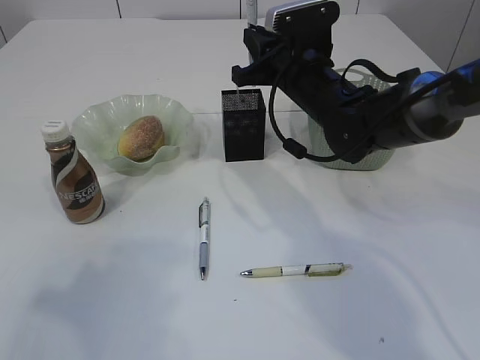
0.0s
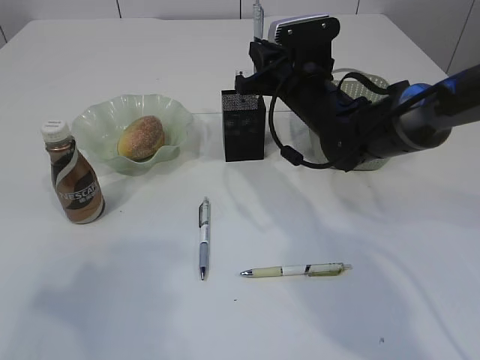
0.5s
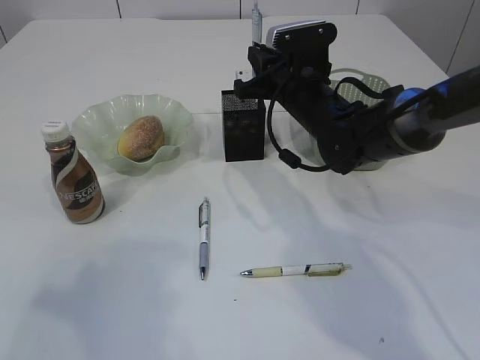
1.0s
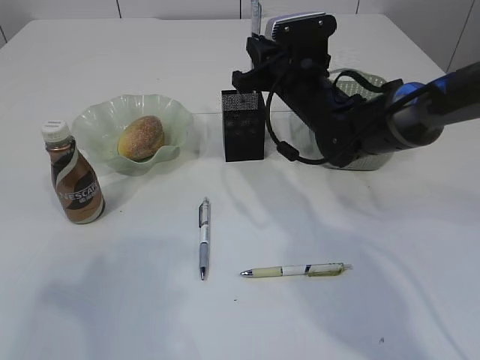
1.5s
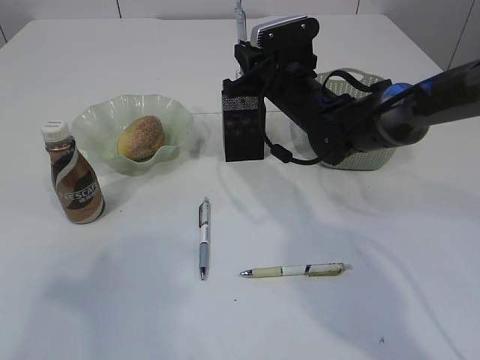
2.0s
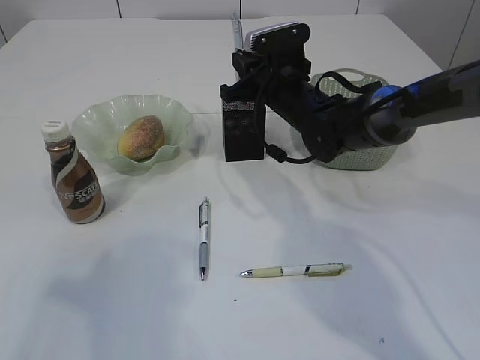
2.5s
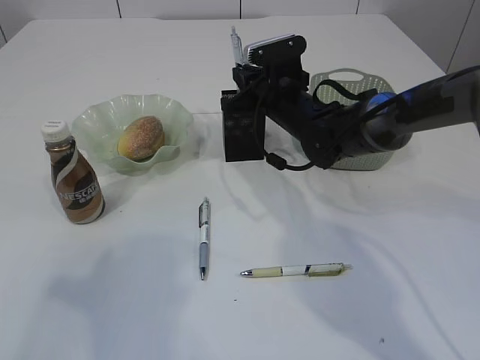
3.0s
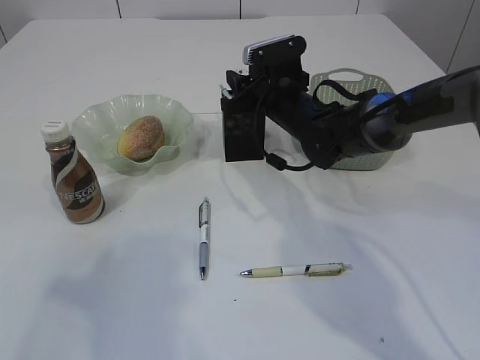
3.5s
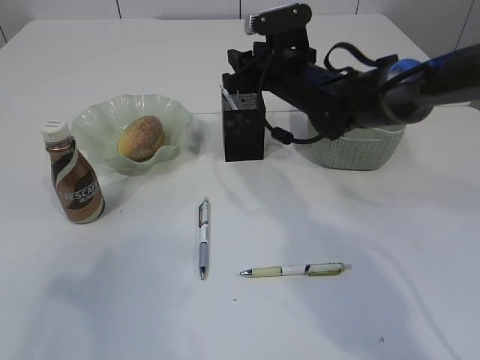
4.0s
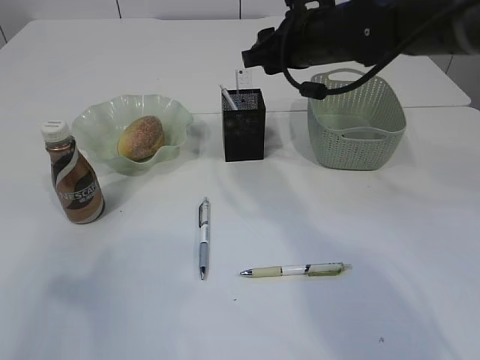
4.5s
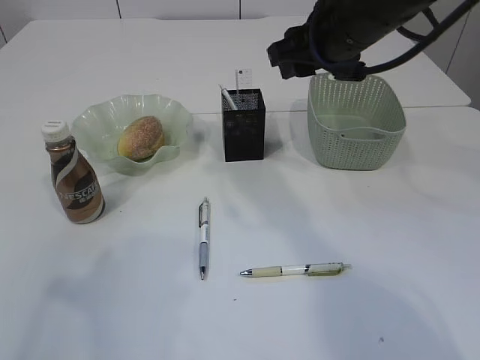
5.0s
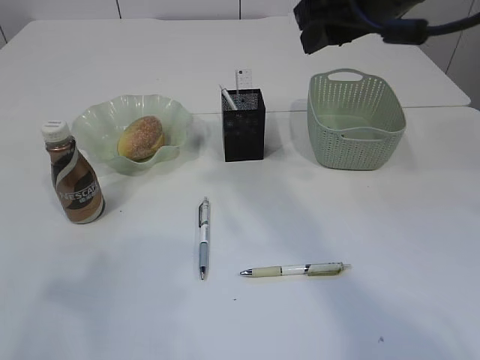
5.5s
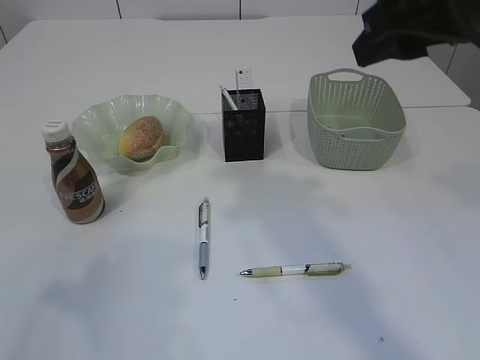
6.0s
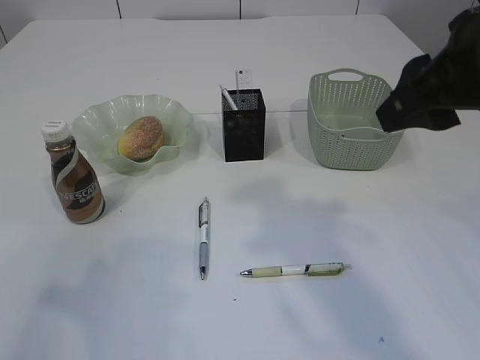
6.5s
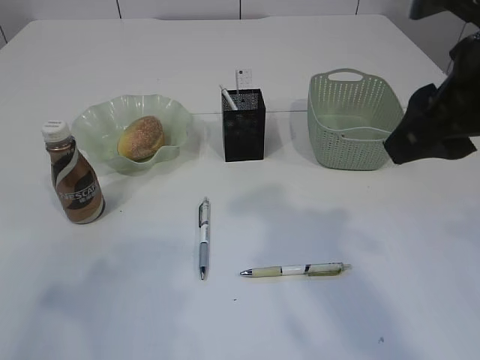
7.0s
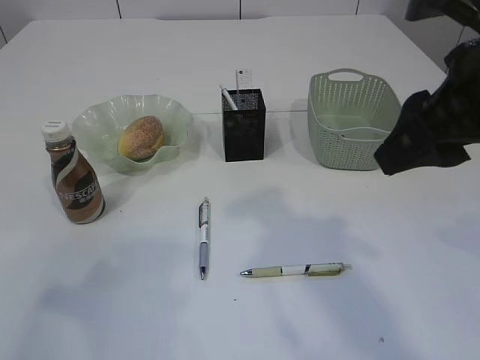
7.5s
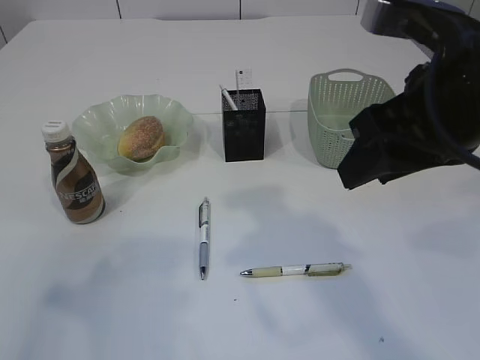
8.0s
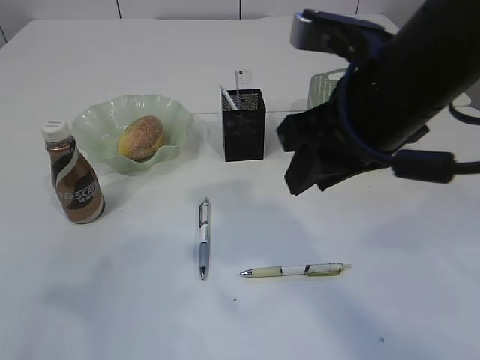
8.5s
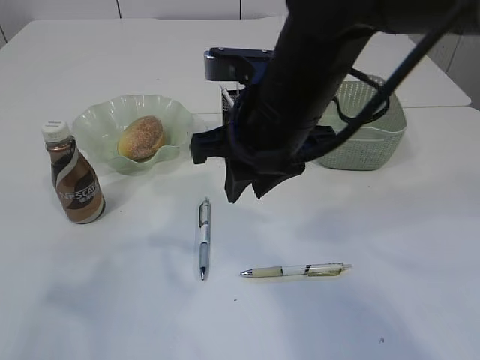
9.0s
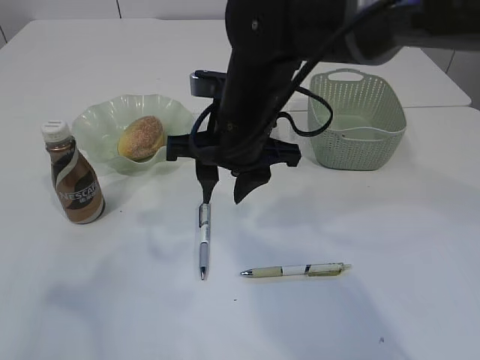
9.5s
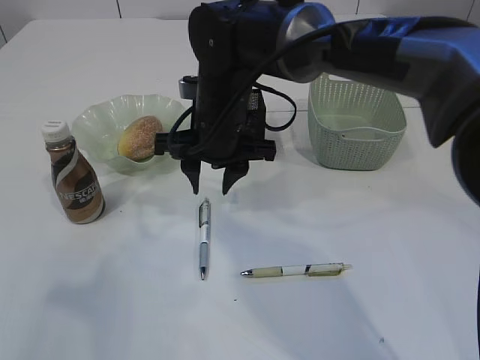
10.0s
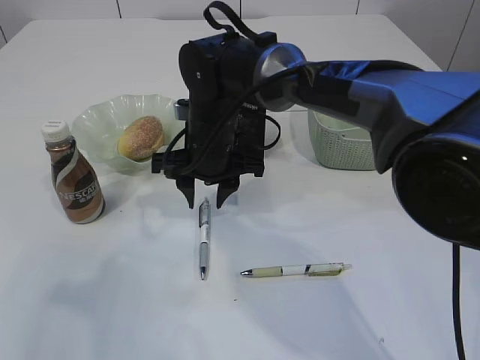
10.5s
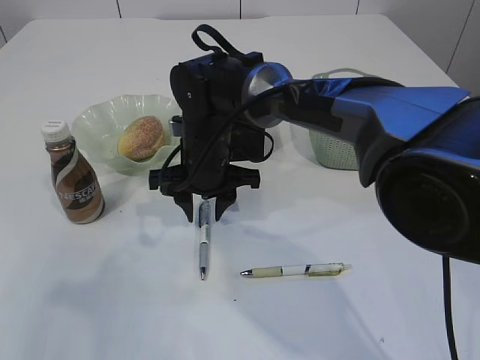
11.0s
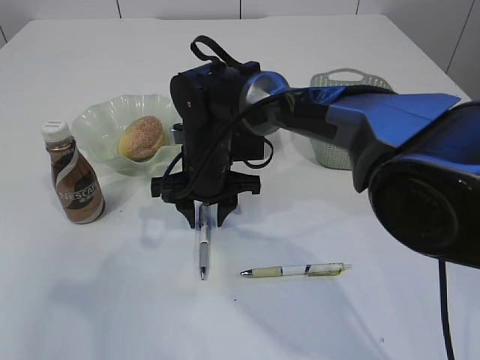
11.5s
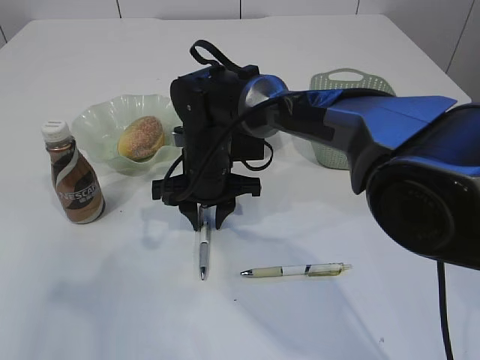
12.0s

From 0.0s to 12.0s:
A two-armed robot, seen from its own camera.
Step, from 0.0s to 4.5s: Place the pen into the pen holder.
From 0.0s to 2.0s: The grippers move only a little.
From 2.0s to 4.0s: The right gripper opens.
From 4.0s to 6.0s: The right gripper is displaced backward and upward by roughly 25 cm.
From 6.0s to 8.0s: The right gripper heads downward, covering roughly 5 cm.
From 8.0s to 10.0s: The right gripper is displaced to the left, forward and downward by roughly 25 cm.
From 10.0s to 12.0s: The right gripper moves downward, about 5 cm.

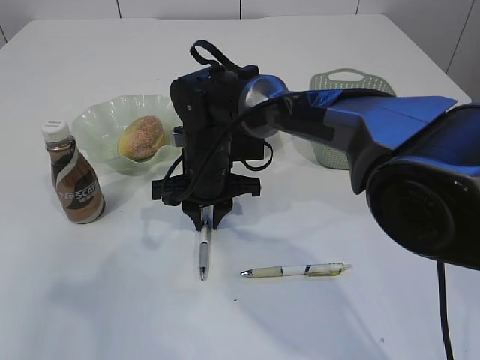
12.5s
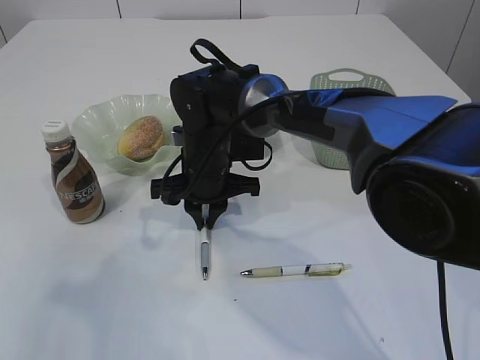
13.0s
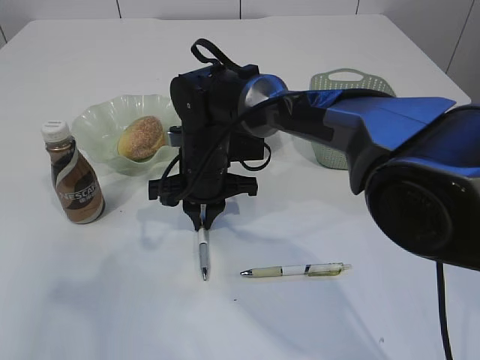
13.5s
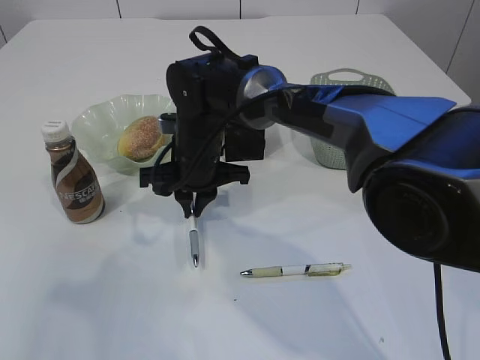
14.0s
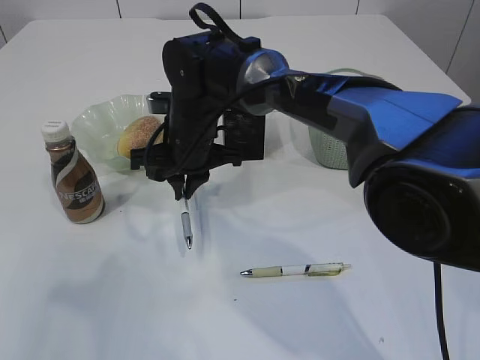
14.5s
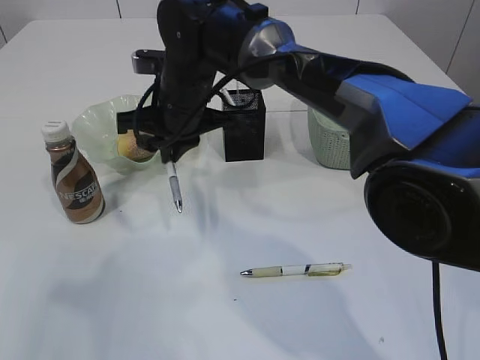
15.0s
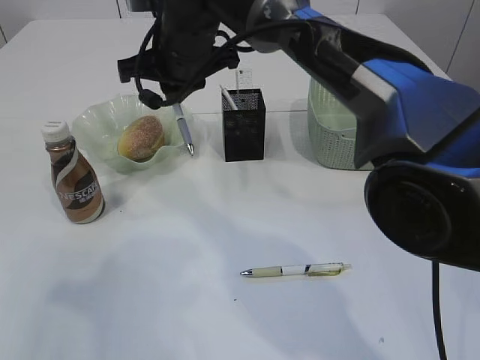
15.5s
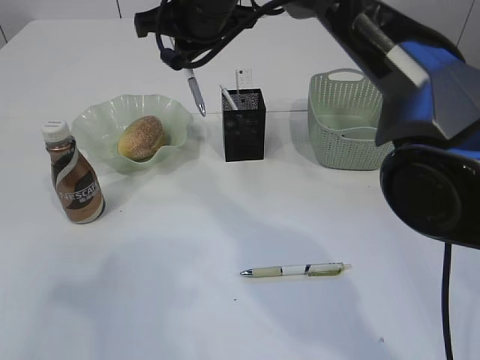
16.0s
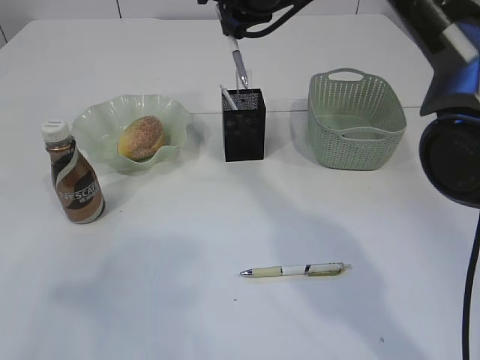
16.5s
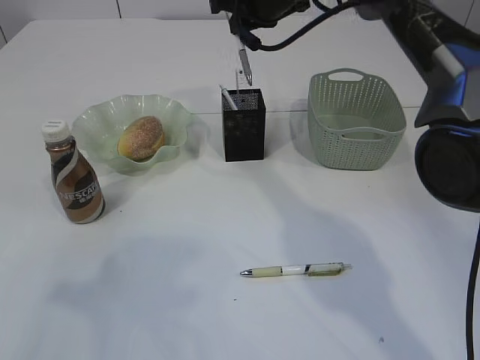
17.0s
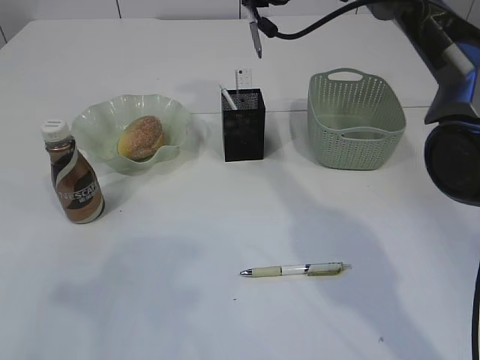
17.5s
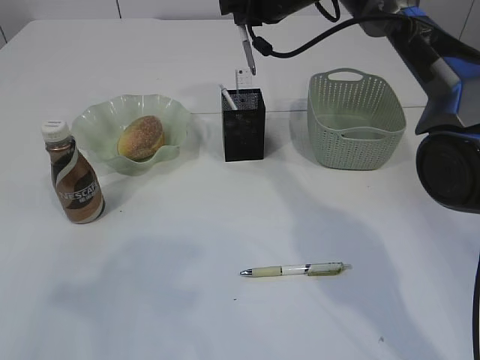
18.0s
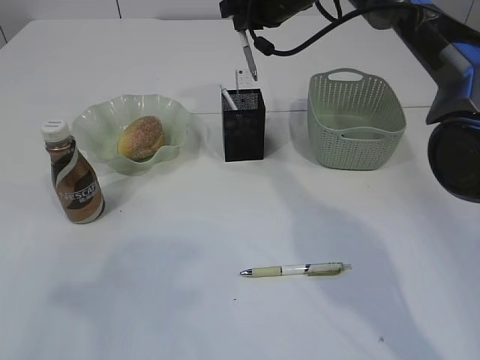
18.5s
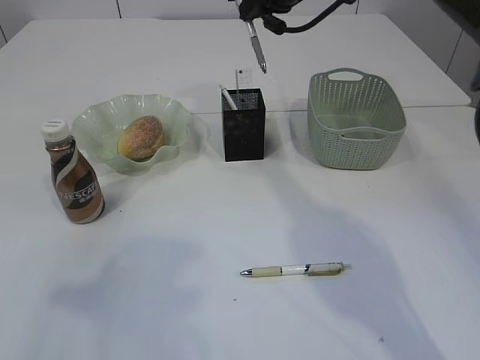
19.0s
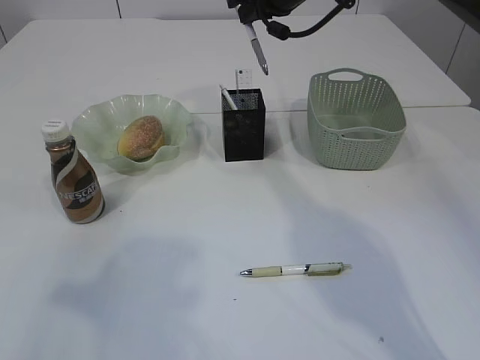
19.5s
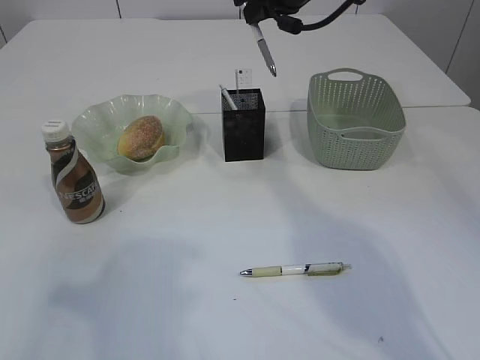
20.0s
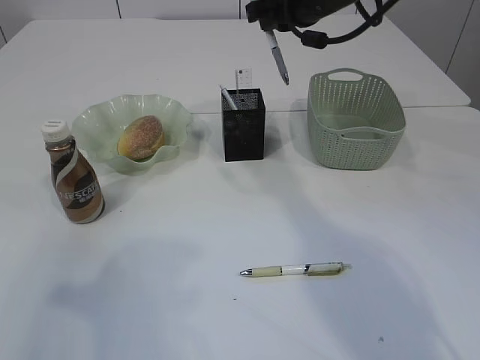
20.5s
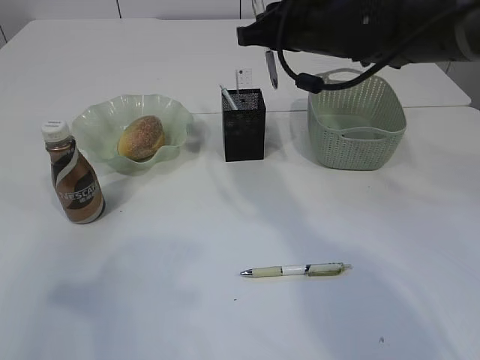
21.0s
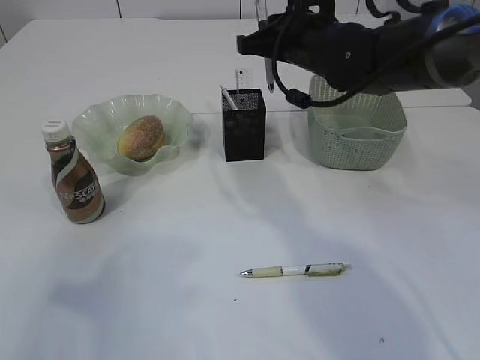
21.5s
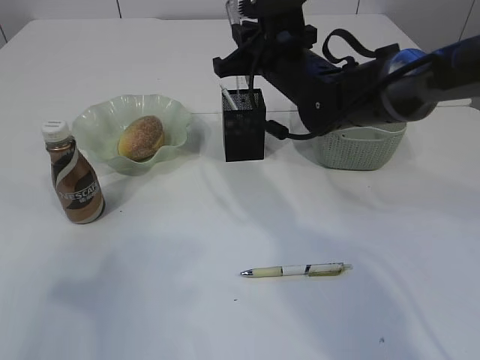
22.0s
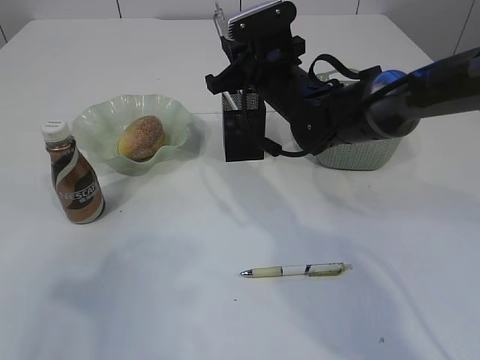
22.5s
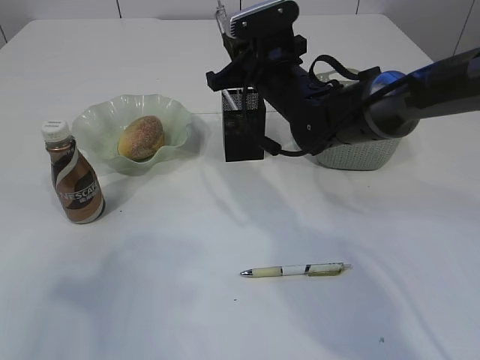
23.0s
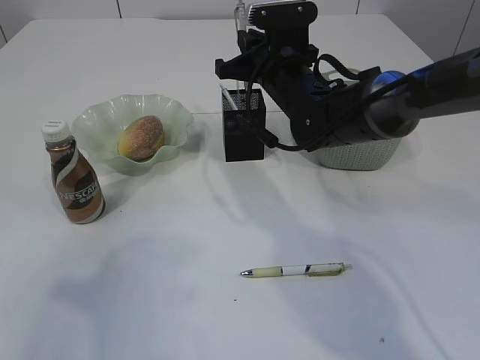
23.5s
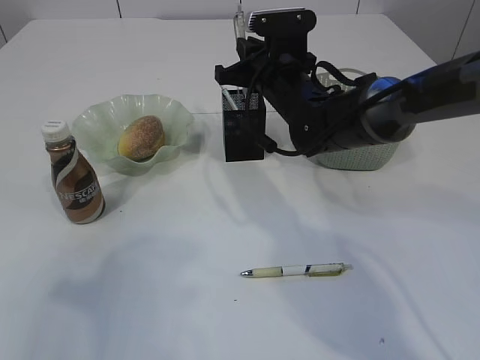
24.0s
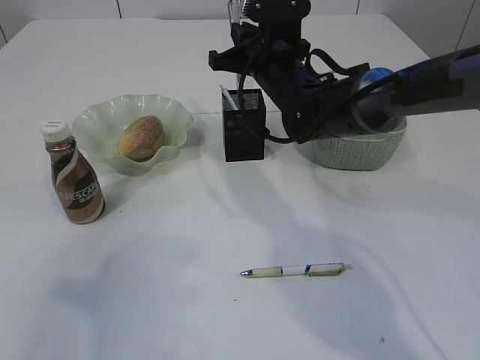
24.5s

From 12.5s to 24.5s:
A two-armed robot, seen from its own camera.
Step, from 12.5s to 15.0s: Pick up the pen with right arm.
From 12.5s to 14.5s: The grippers stay close to where they were, moving slightly.
From 14.5s to 16.5s: The right gripper moves upward and to the right, some 20 cm.
From 16.5s to 18.5s: The right gripper heads forward, covering about 5 cm.
From 18.5s to 20.5s: The right gripper heads backward, covering approximately 5 cm.
From 20.5s to 22.5s: The right gripper travels downward and to the left by roughly 10 cm.
From 22.5s to 24.5s: The grippers stay close to where they were, moving slightly.

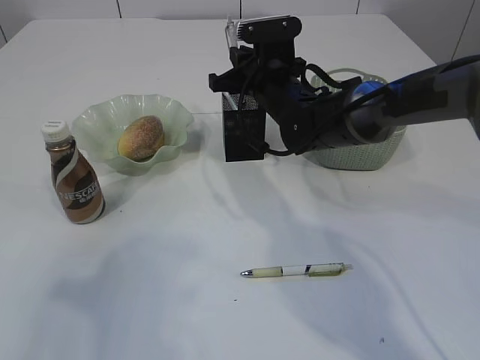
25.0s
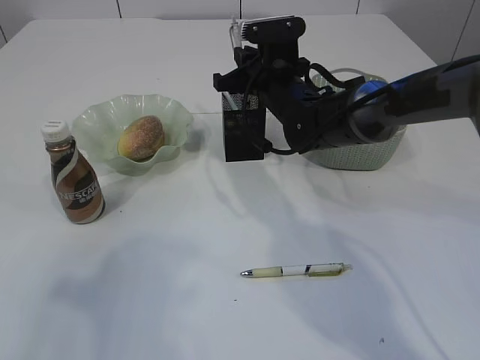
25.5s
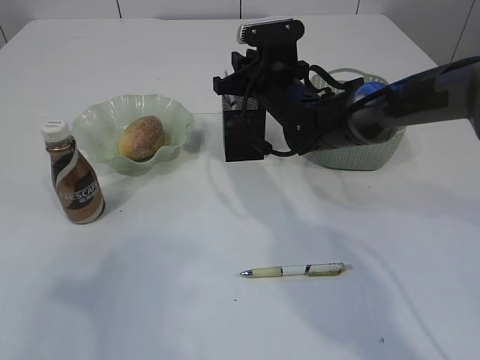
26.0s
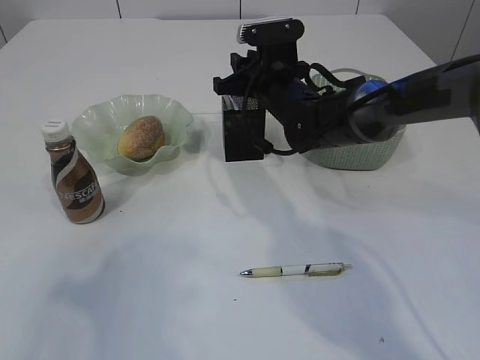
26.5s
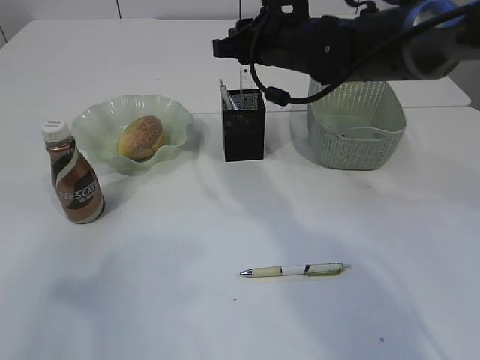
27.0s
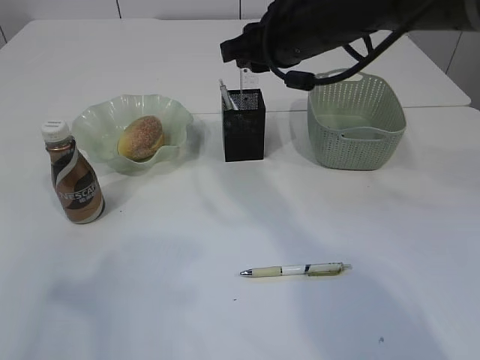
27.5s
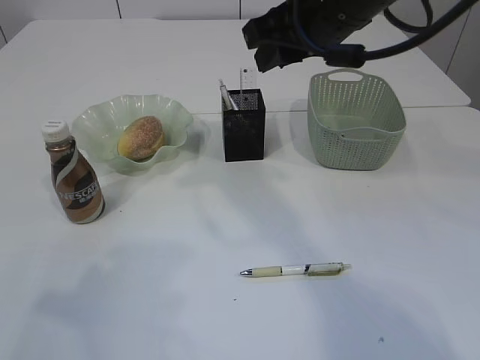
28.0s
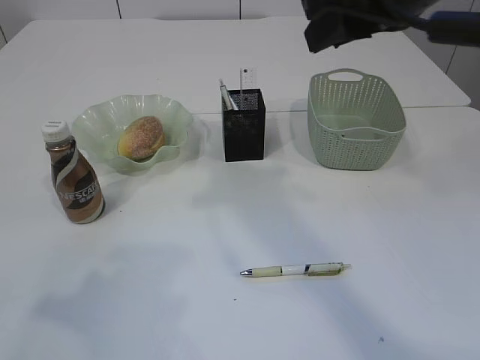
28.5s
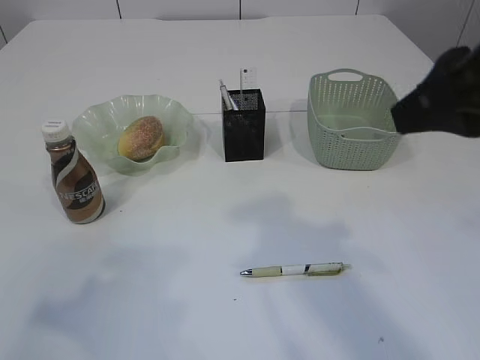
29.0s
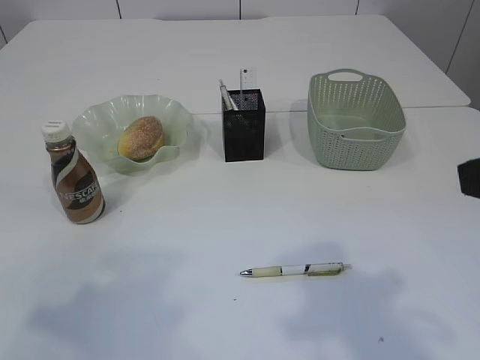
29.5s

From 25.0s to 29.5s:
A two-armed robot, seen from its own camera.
Step, from 25.0s to 27.0s: Place the pen into the pen holder.
From 25.0s to 27.0s: The right gripper shifts some 5 cm upward.
From 27.0s to 29.5s: The right gripper travels backward and to the right by about 35 cm.
